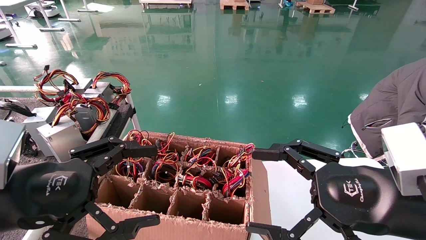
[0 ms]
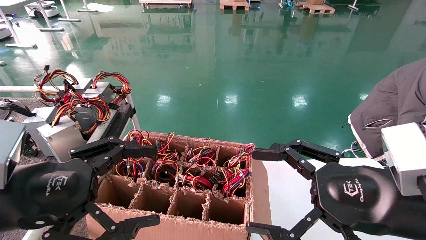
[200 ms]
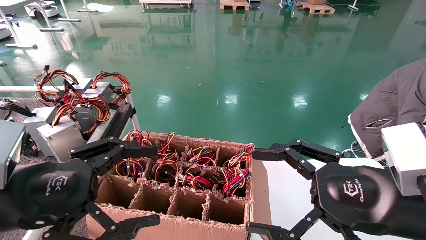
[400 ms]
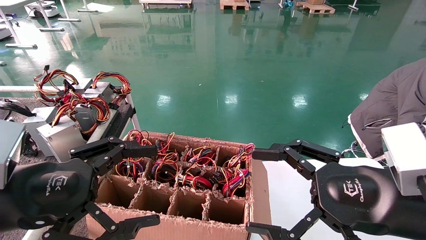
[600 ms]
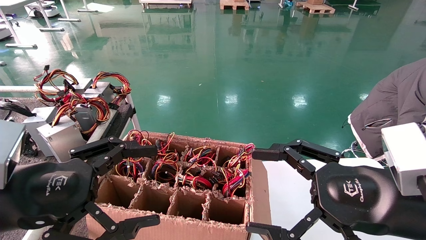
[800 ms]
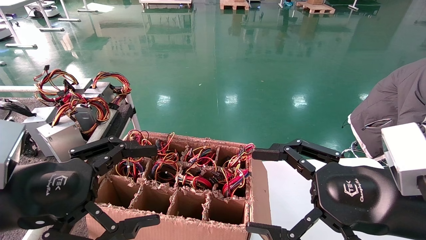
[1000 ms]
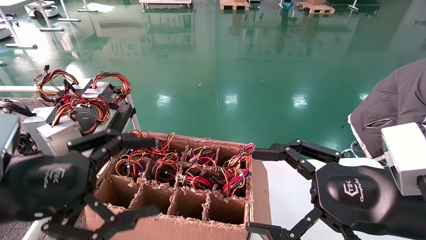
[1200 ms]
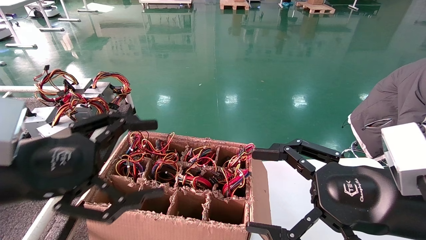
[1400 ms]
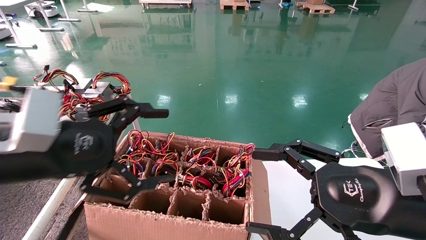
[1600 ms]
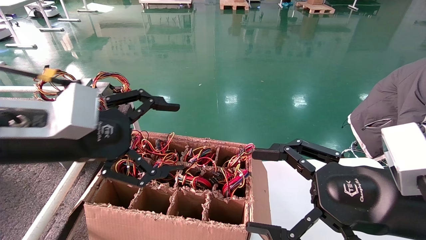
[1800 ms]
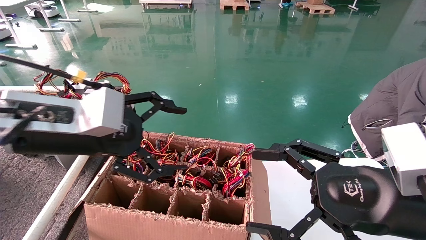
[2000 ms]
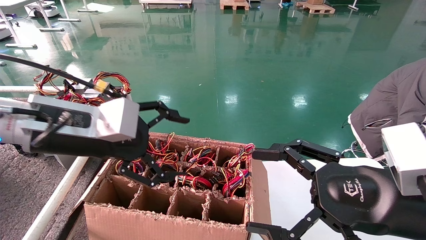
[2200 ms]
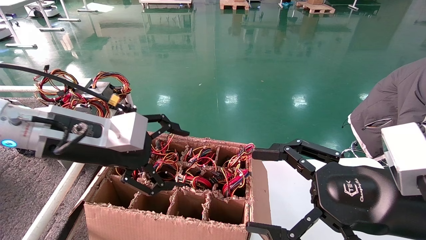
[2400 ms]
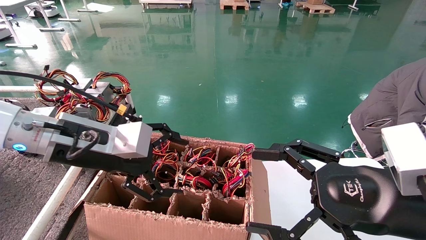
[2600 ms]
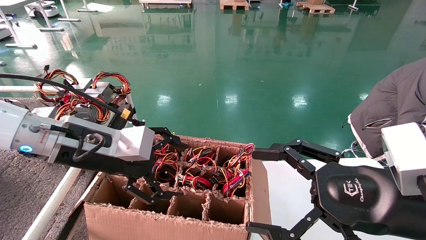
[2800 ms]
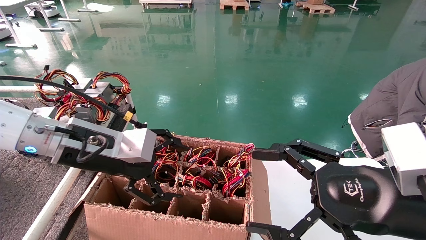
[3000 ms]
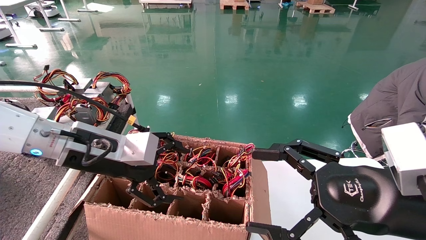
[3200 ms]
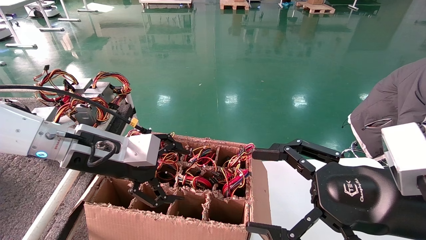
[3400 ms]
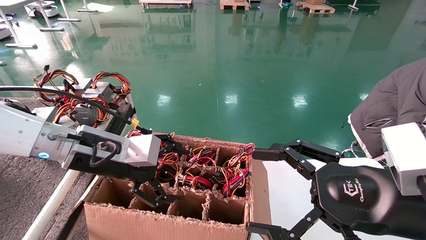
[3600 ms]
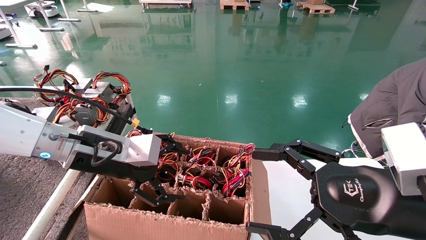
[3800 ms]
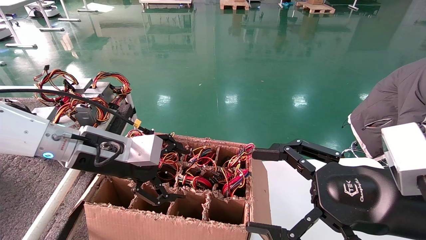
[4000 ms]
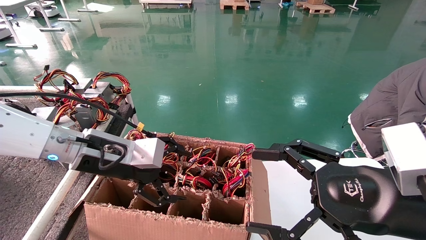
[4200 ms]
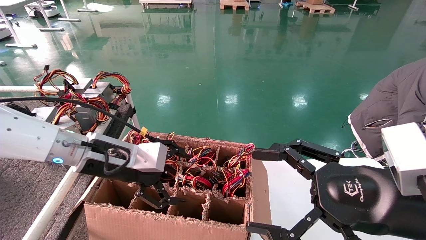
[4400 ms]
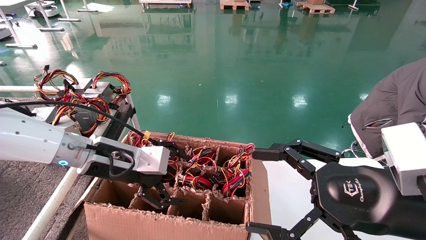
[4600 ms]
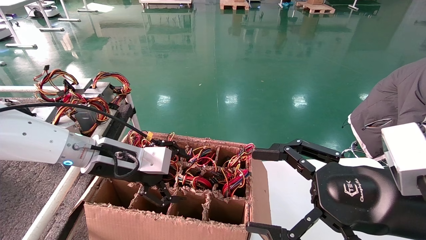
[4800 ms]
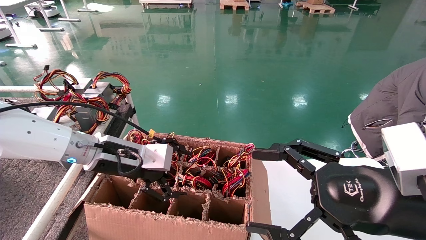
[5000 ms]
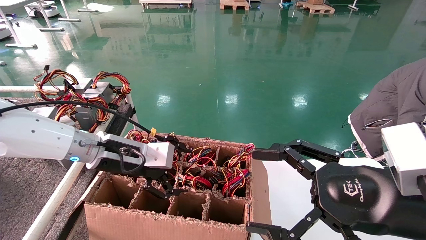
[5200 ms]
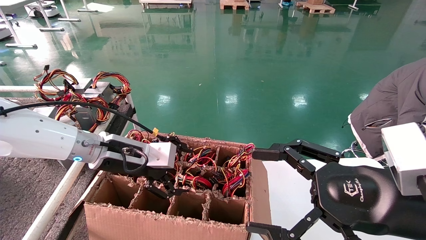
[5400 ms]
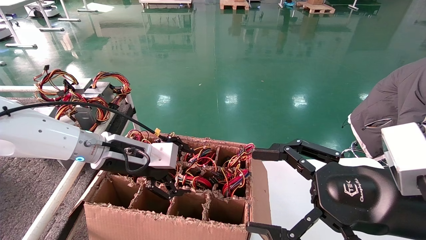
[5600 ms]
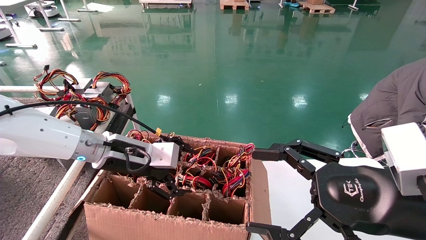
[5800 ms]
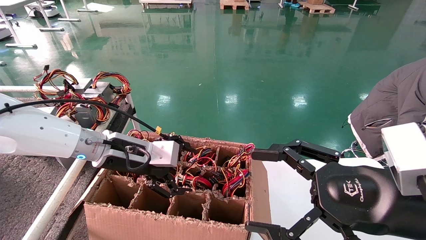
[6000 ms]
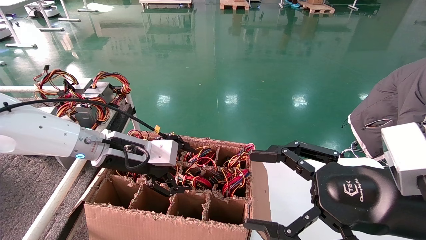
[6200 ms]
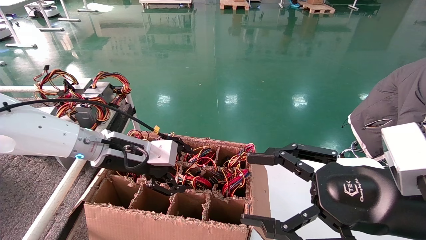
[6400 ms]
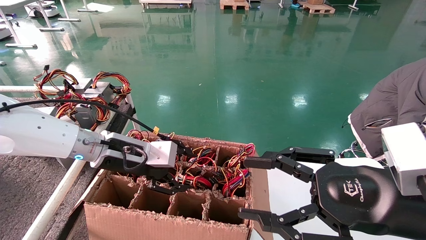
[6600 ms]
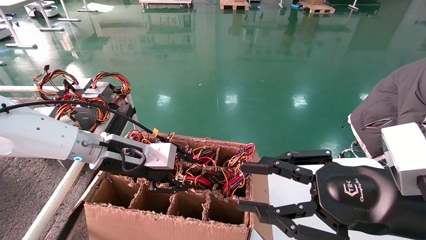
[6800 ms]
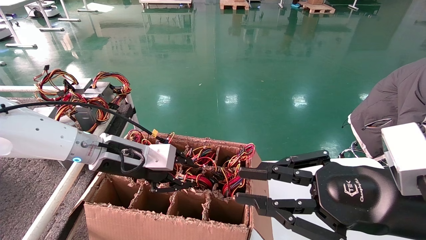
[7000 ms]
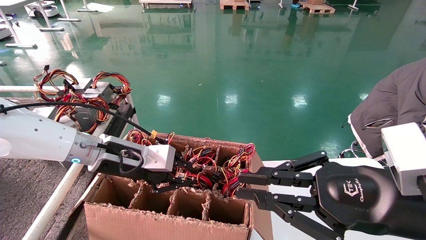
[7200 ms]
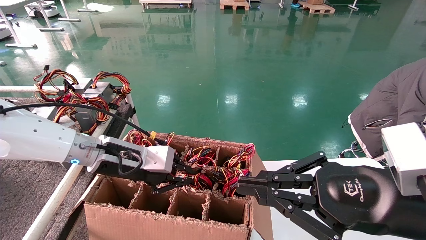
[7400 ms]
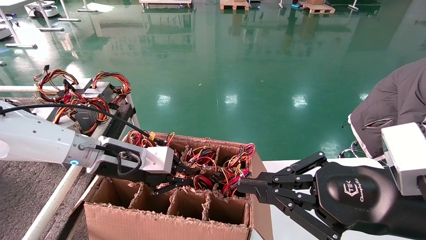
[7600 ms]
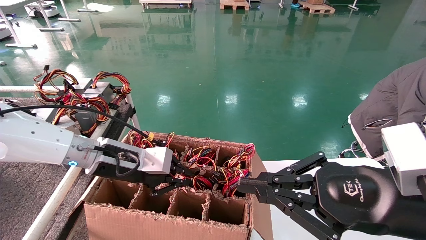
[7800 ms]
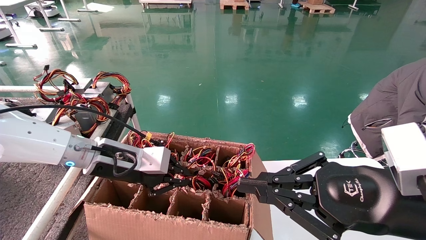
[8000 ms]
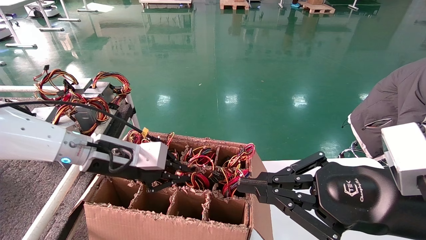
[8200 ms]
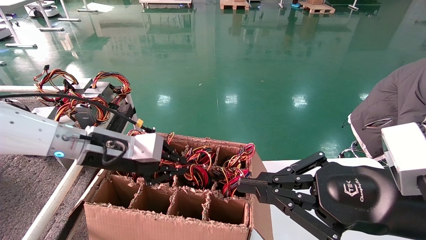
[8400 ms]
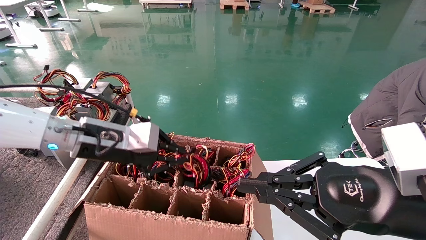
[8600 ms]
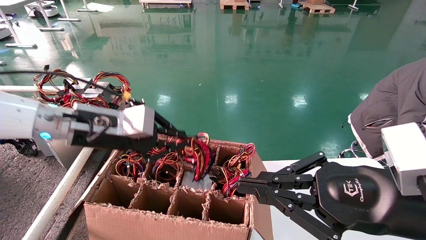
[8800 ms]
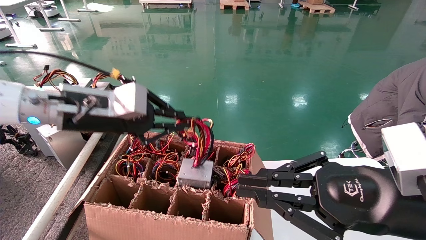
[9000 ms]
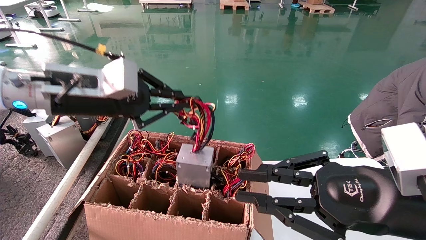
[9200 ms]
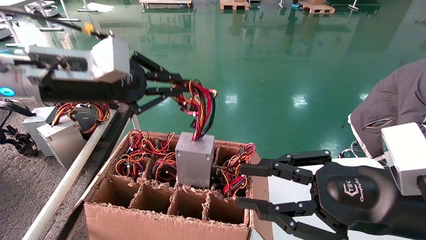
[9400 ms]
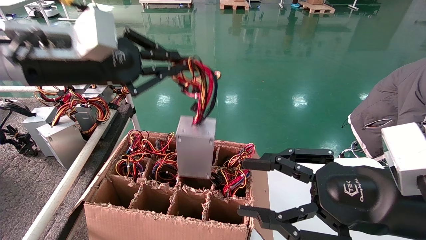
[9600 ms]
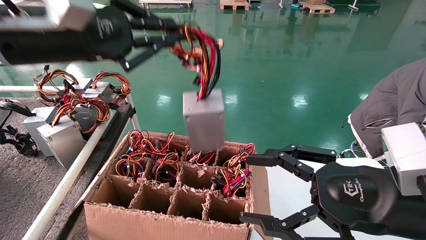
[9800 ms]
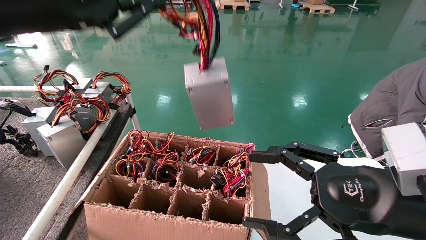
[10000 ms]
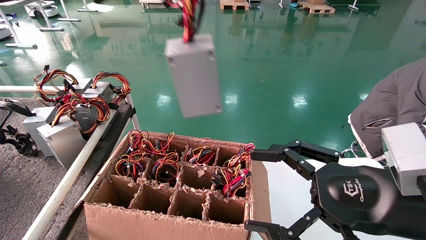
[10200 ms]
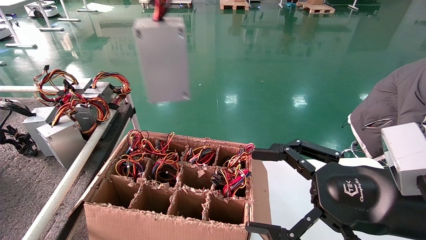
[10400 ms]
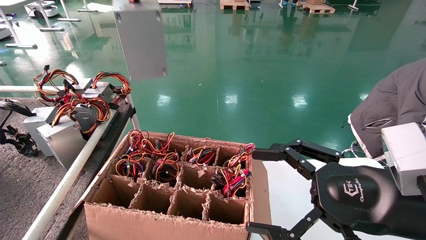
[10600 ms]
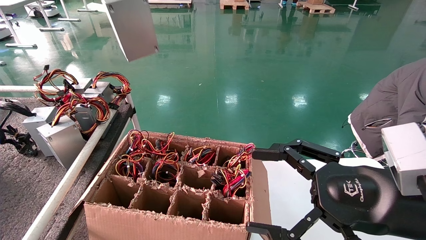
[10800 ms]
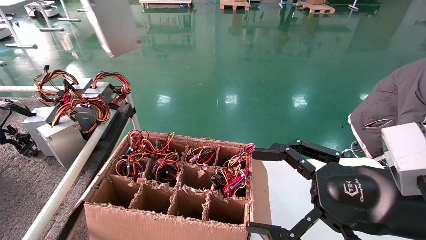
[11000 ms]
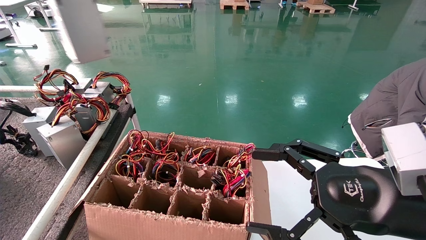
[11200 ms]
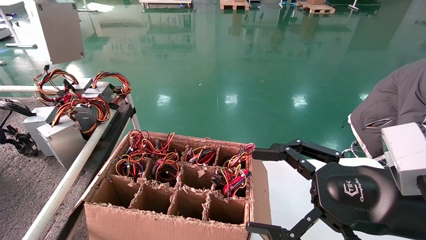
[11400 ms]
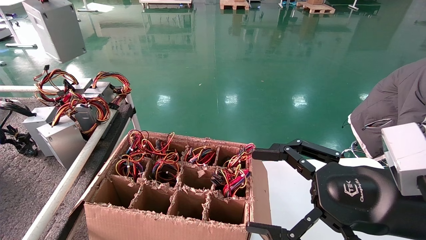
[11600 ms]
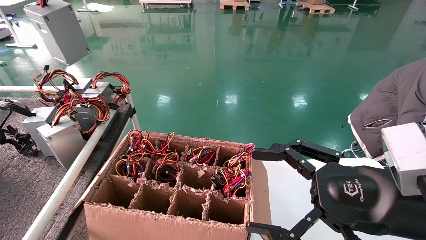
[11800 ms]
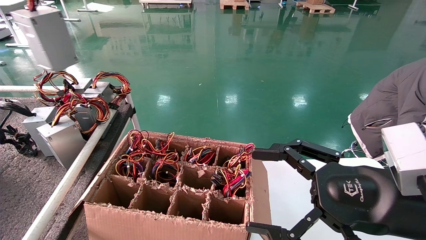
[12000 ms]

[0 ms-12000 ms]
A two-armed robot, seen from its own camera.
Step, 1400 ms to 7400 ms: Grab and lift the power supply from the large box.
0 ms to 1600 ms: The left gripper changes place by approximately 5 cm.
1600 ms to 3000 ms: The left gripper goes about 10 cm forward.
3000 ms to 4400 ms: The left gripper moves approximately 5 cm.
4400 ms to 6000 ms: The grippers stay close to where they were, moving slightly.
6000 ms to 7600 ms: The left gripper closes up. The right gripper closes.
7600 ms to 9000 ms: The left gripper travels upward by some 10 cm.
9000 ms to 10400 ms: The left gripper moves upward and backward, about 20 cm; the right gripper opens its fingers.
10400 ms to 12000 ms: The left gripper shifts some 15 cm to the left.

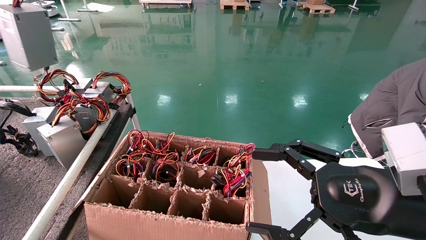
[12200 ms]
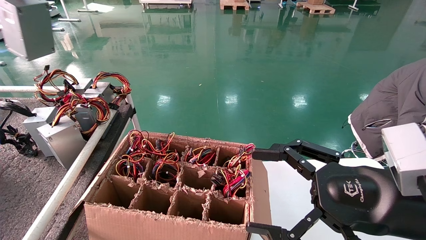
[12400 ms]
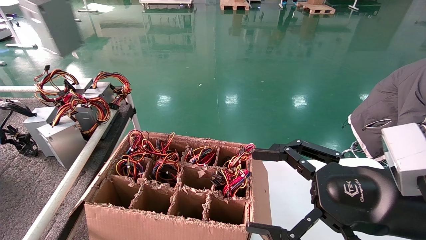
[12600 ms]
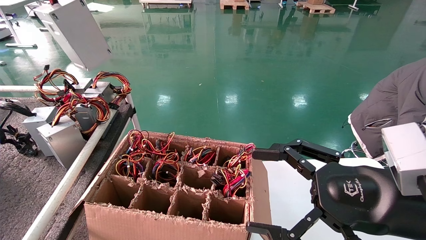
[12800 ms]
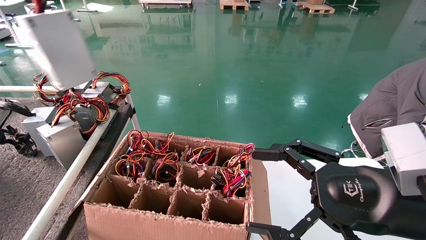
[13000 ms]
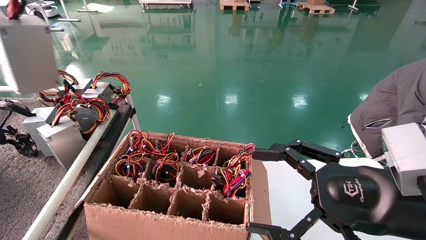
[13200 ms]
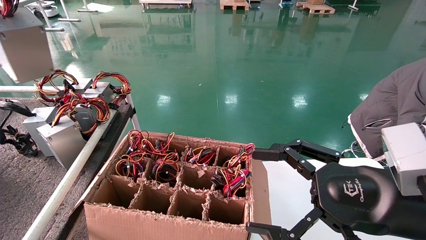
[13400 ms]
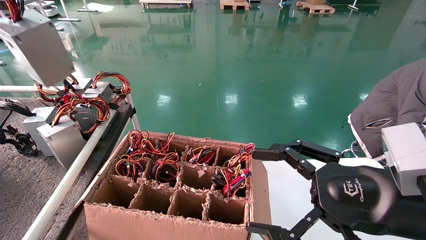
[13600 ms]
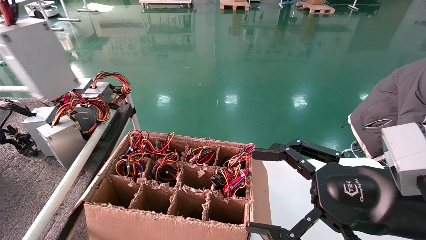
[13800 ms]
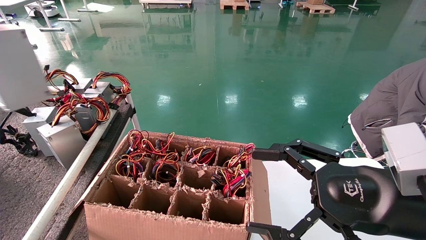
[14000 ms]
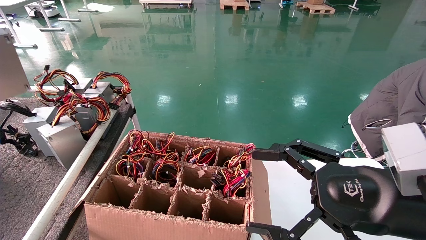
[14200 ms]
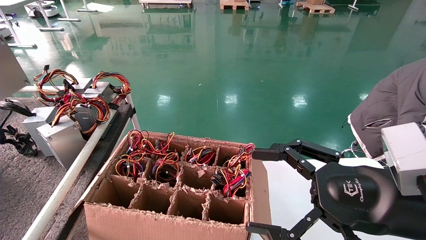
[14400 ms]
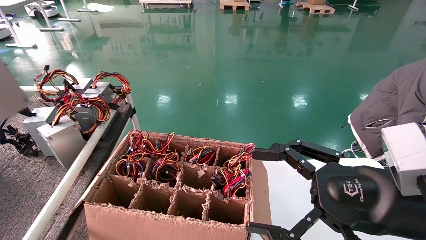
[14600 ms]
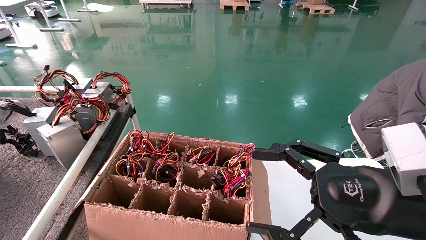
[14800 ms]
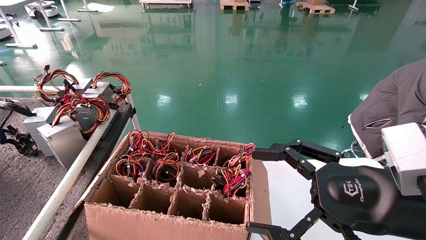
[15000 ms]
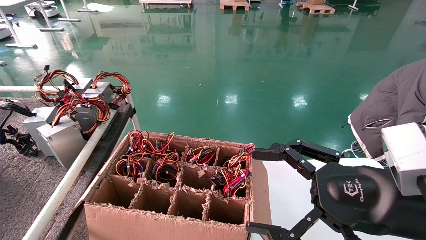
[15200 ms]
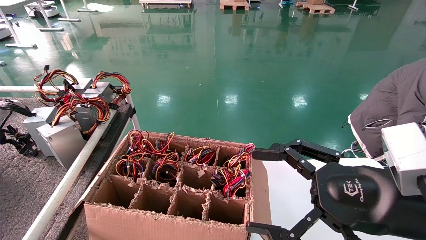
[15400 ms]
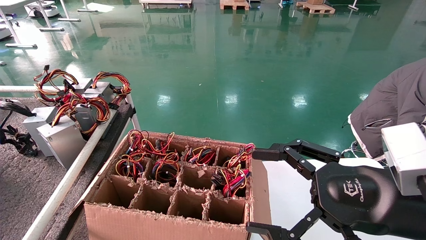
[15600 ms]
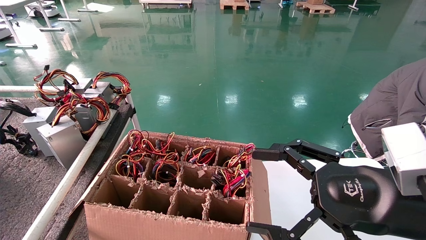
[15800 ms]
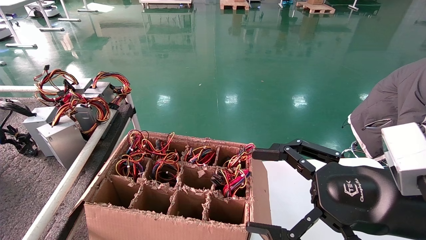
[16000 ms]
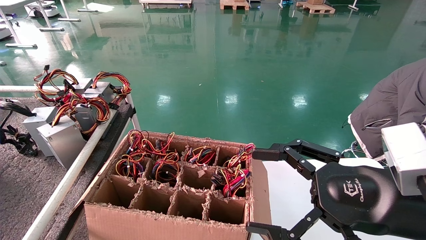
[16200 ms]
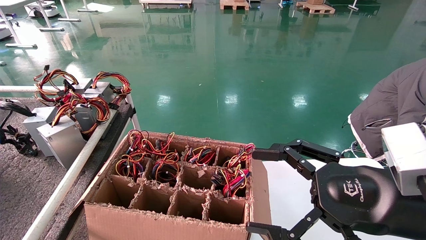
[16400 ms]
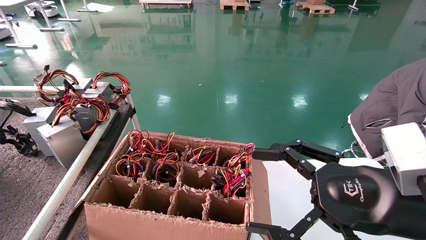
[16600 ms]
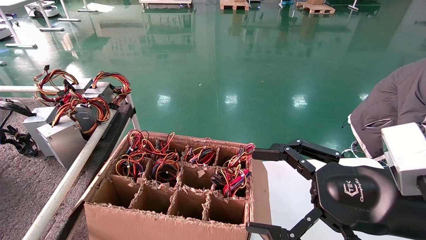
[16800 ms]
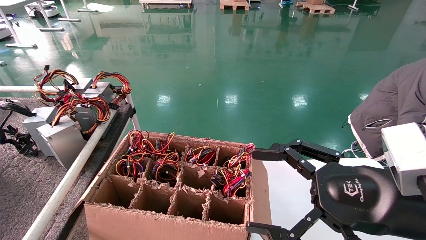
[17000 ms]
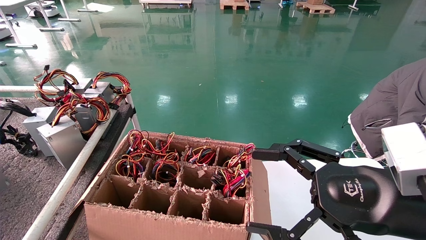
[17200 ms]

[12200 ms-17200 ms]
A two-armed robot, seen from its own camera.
12200 ms to 13800 ms: The left gripper moves backward, about 15 cm.
13800 ms to 15600 ms: The left gripper moves backward, downward and to the left, some 15 cm.
